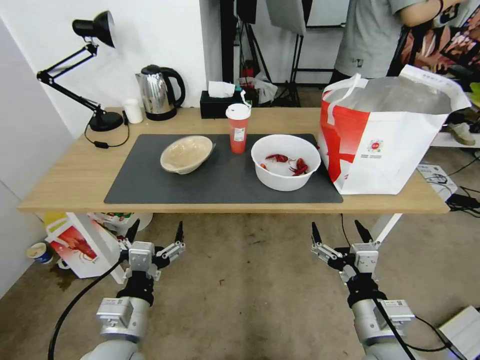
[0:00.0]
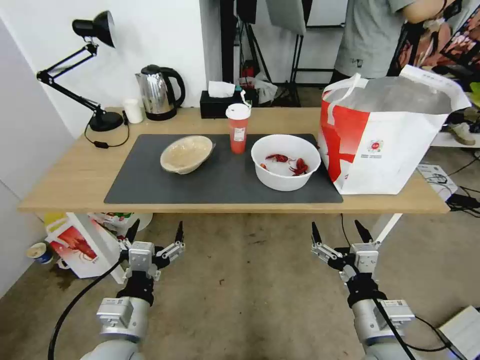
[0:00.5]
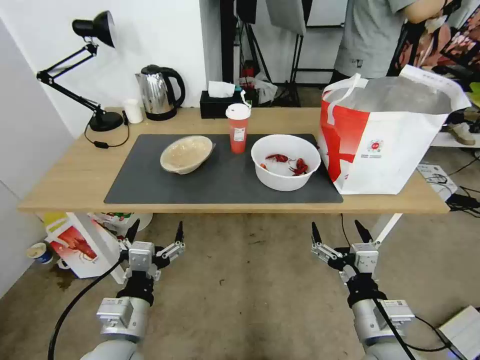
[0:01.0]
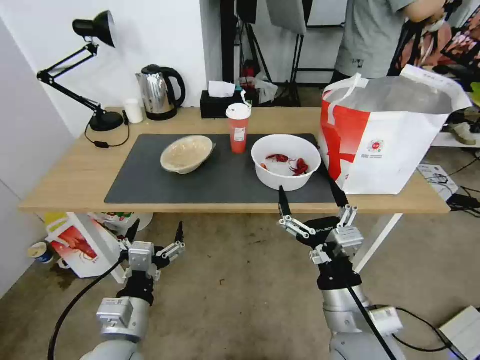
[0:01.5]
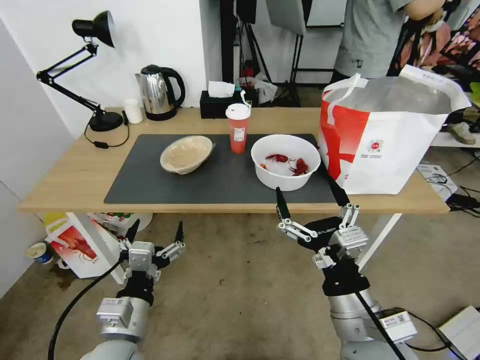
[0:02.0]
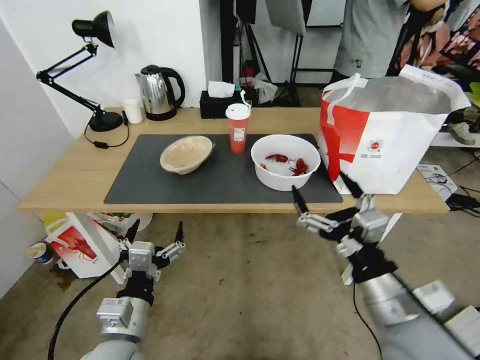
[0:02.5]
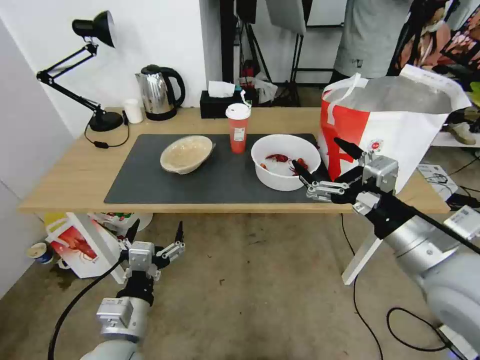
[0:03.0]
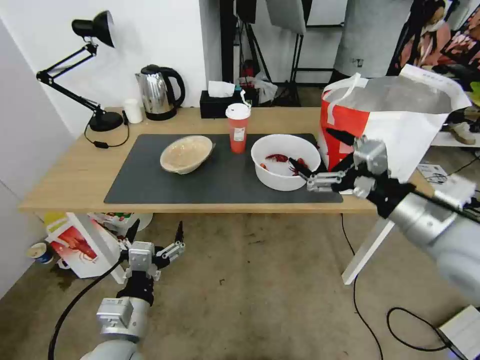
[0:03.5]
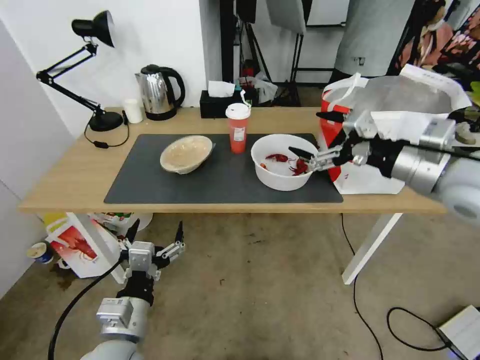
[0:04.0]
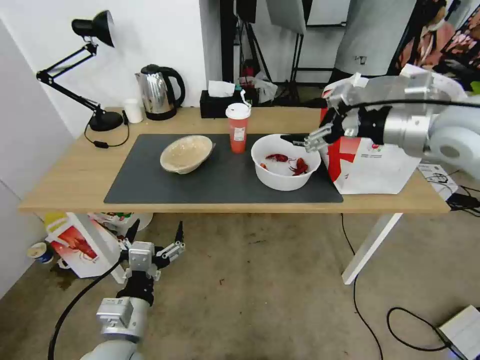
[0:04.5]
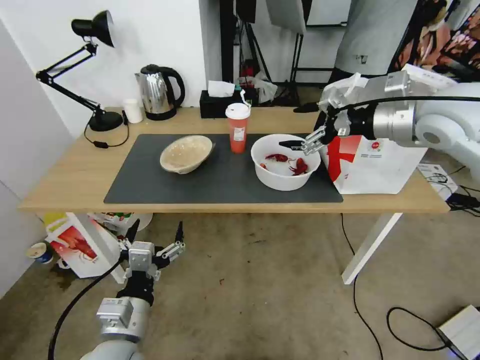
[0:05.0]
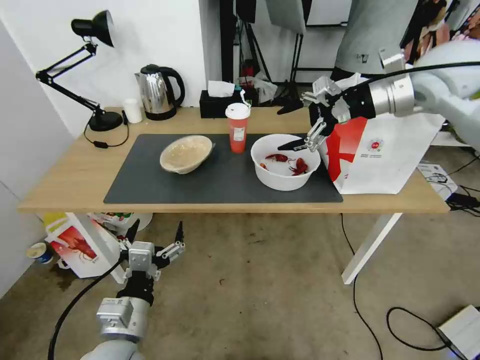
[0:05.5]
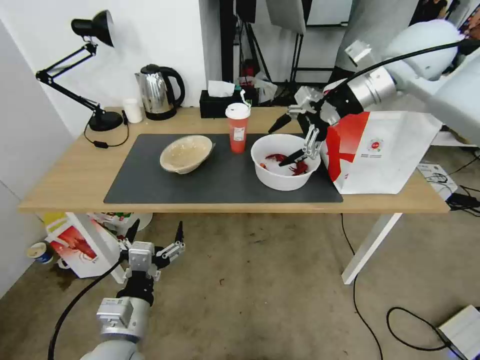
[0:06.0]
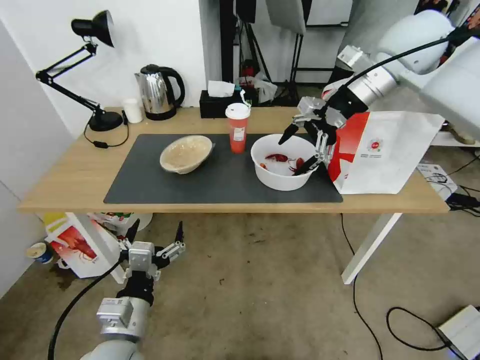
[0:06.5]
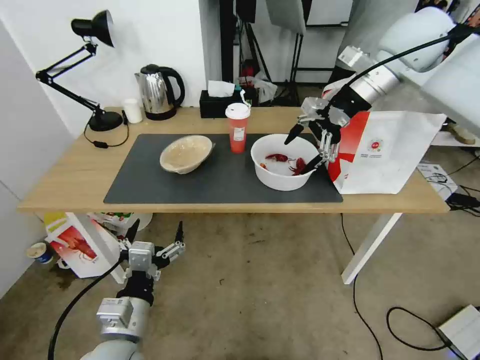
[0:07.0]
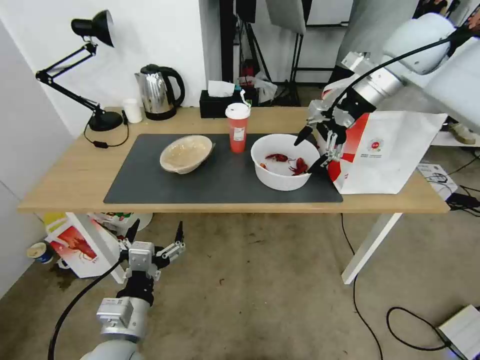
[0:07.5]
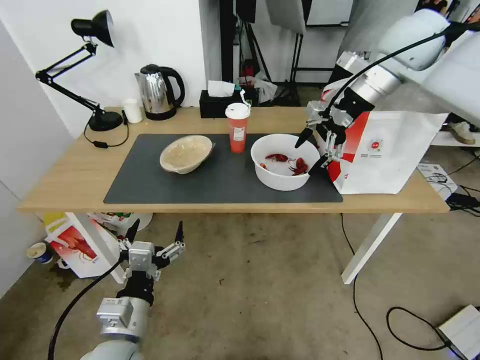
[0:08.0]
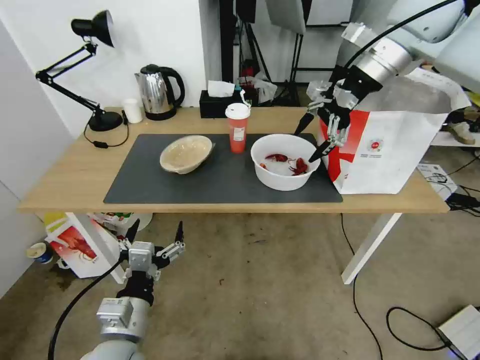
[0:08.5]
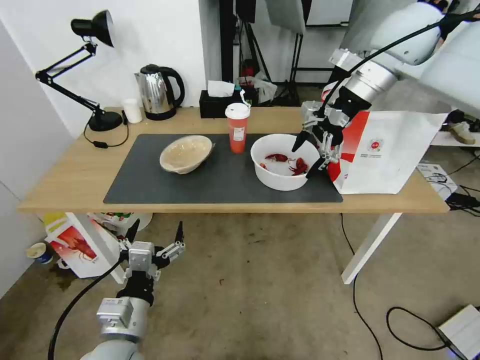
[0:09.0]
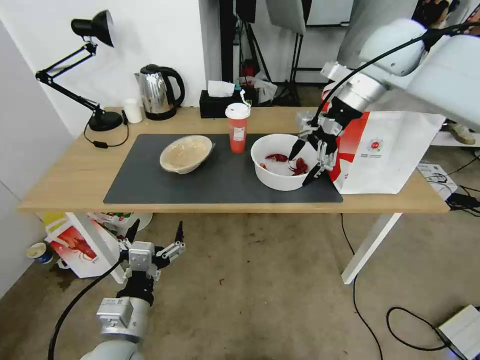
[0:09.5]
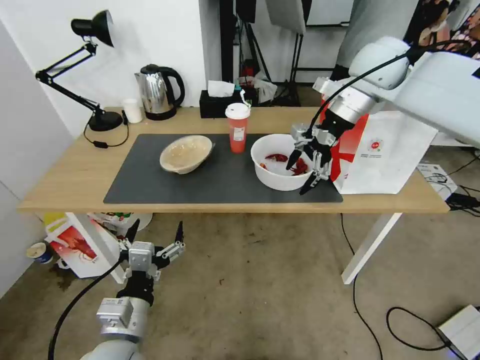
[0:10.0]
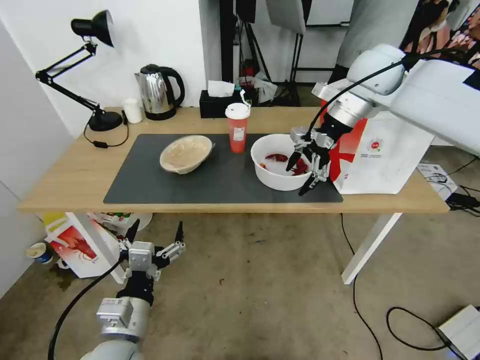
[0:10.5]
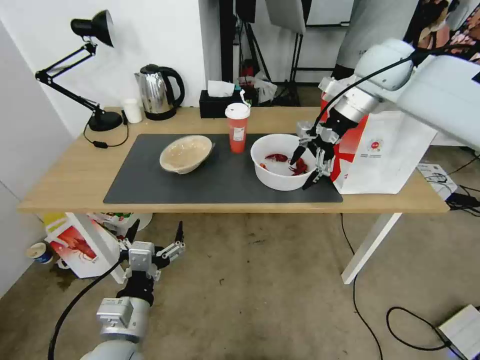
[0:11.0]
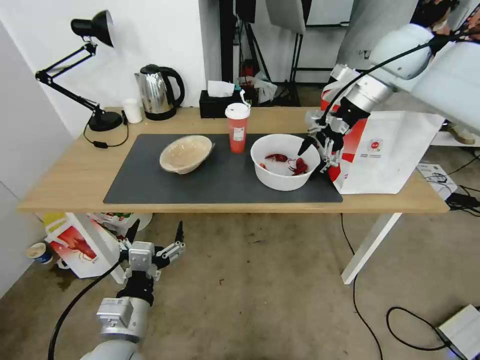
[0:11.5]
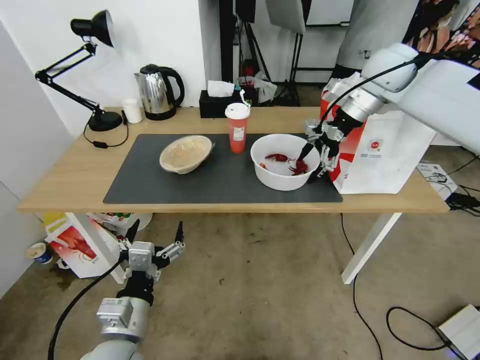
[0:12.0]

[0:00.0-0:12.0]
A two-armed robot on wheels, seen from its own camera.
Task of the whole recording: Pick up the trash from the table and place it into the takeout bag.
0:02.0 to 0:04.0: The right gripper goes roughly 30 cm upward, forward and to the right.
0:04.0 to 0:06.0: The right gripper goes about 20 cm forward and upward.
0:08.0 to 0:10.0: The right gripper ends up some 5 cm from where it was.
0:10.0 to 0:12.0: The right gripper moves some 5 cm.

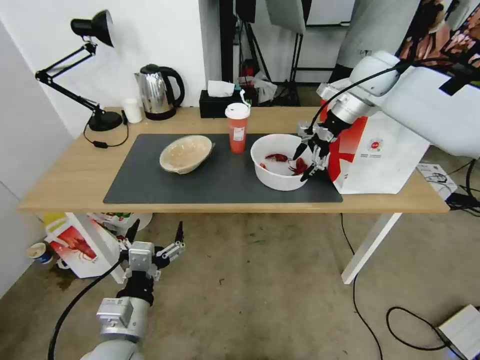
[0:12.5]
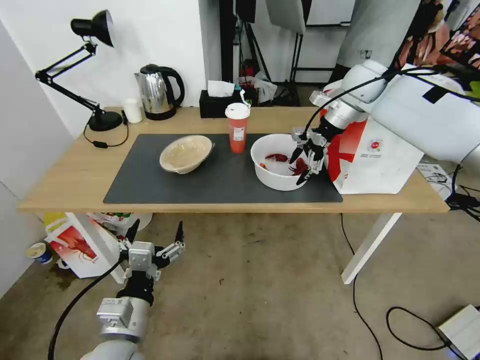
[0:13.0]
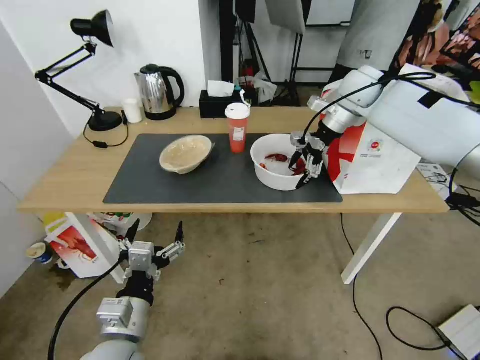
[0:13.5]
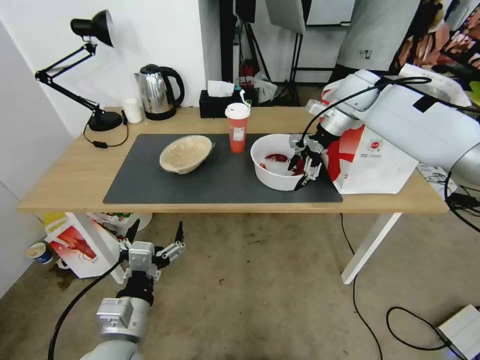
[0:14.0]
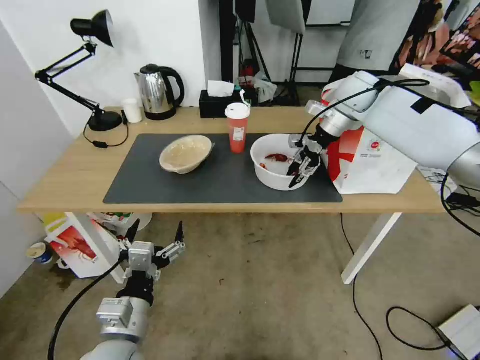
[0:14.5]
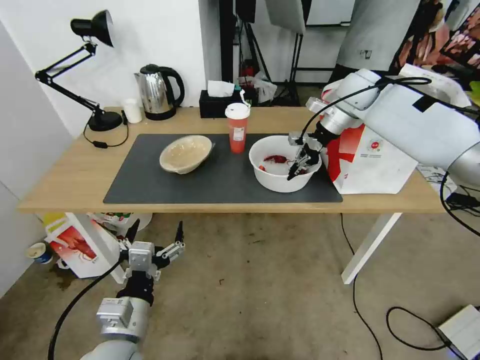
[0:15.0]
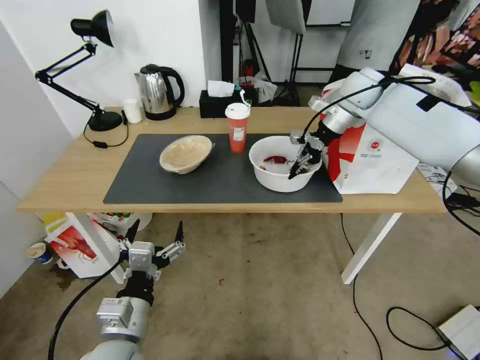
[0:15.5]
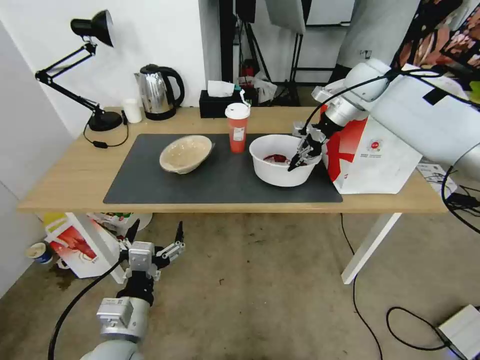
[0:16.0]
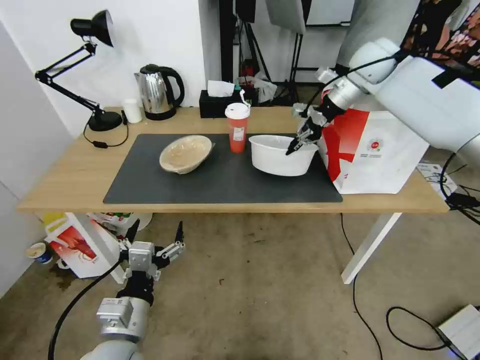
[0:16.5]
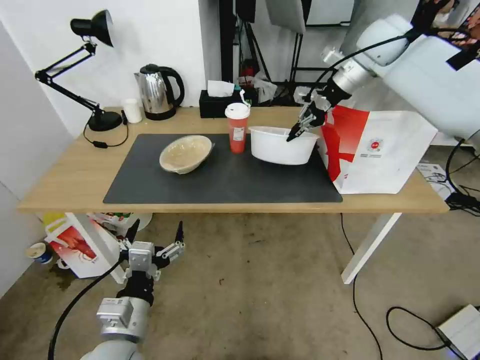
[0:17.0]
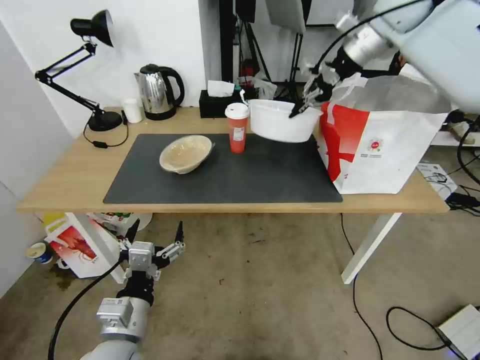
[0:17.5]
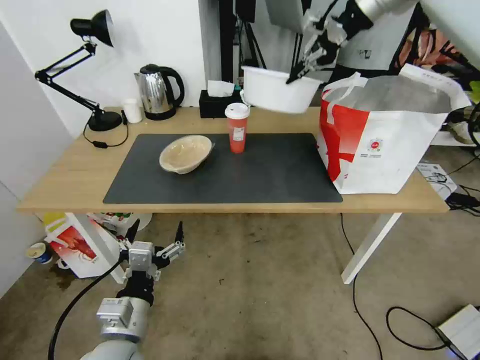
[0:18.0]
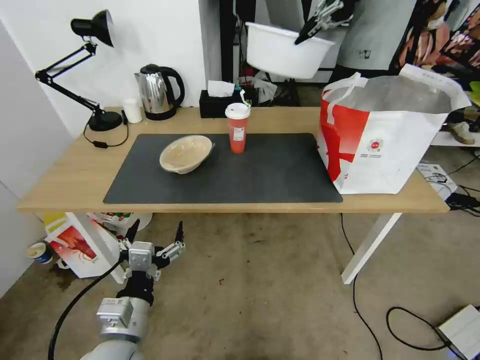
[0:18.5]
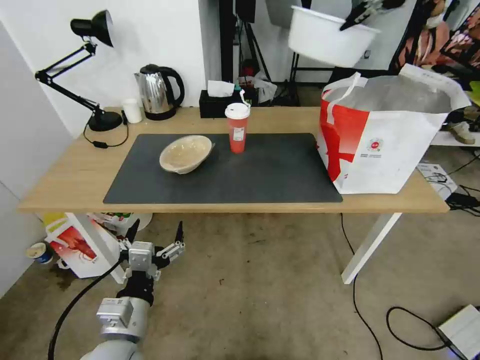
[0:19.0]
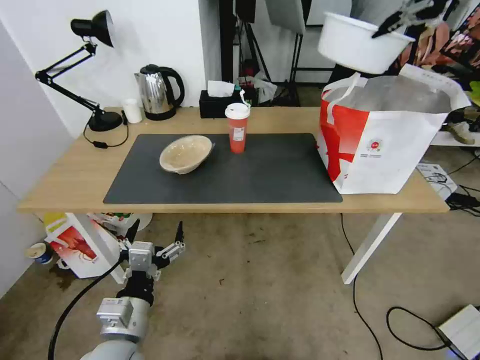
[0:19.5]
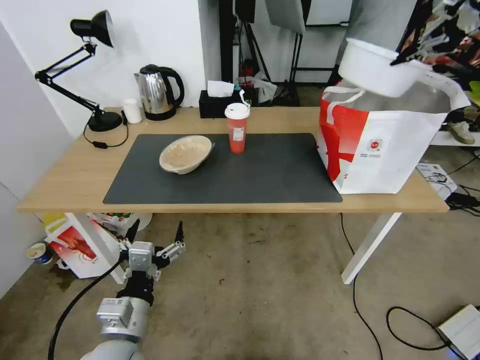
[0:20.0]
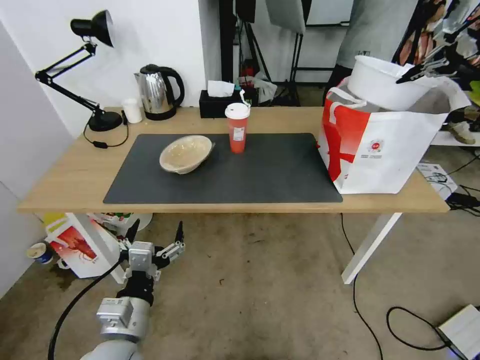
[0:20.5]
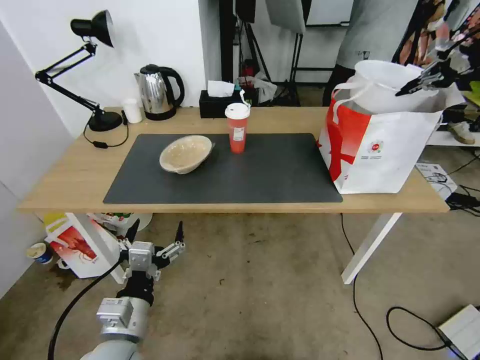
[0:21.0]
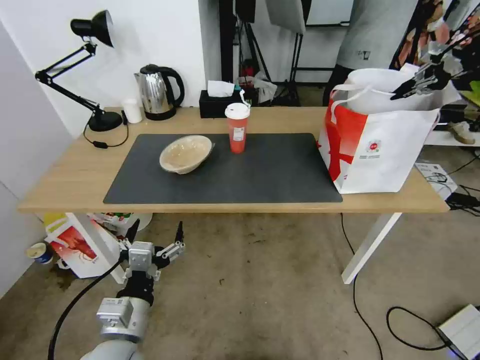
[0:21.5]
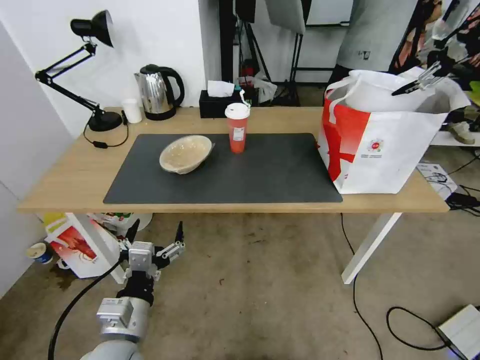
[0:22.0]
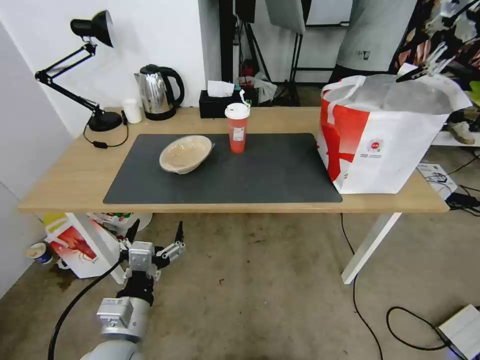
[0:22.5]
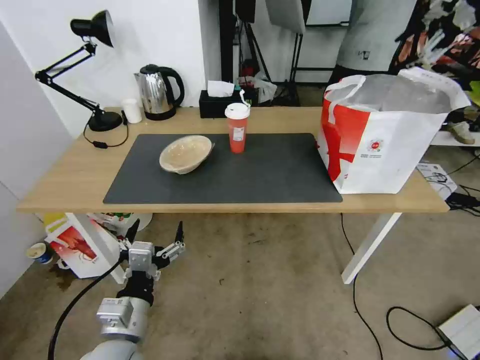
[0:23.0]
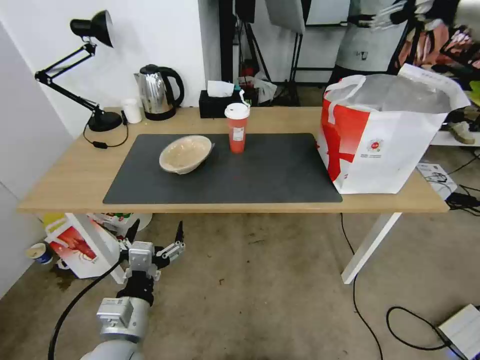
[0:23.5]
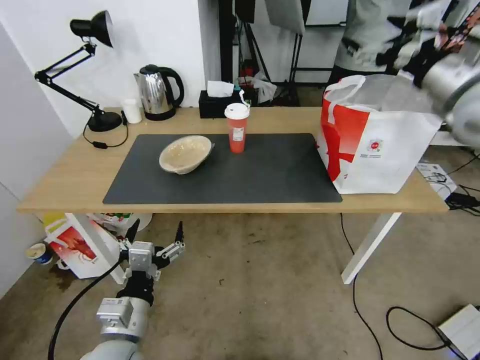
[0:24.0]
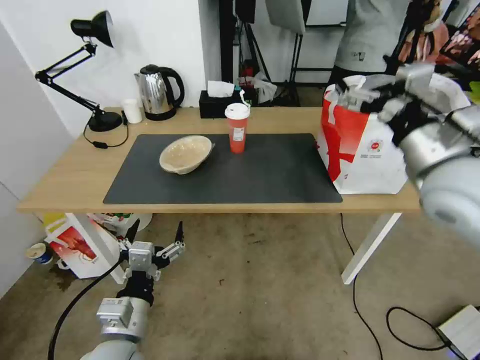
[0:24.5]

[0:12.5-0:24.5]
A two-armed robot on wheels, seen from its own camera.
Task of the whole recording: Pick up the trash from the table and place it into the takeout bag.
0:12.5 to 0:14.5: The right gripper closes up.
0:14.5 to 0:16.5: The right gripper moves upward, roughly 5 cm, and closes its fingers.
0:16.5 to 0:18.5: The right gripper shifts about 25 cm upward.
0:18.5 to 0:20.5: The right gripper is displaced to the right and downward by roughly 30 cm.
0:20.5 to 0:22.5: The right gripper opens its fingers.
0:22.5 to 0:24.5: The right gripper heads backward, downward and to the left, covering roughly 40 cm.

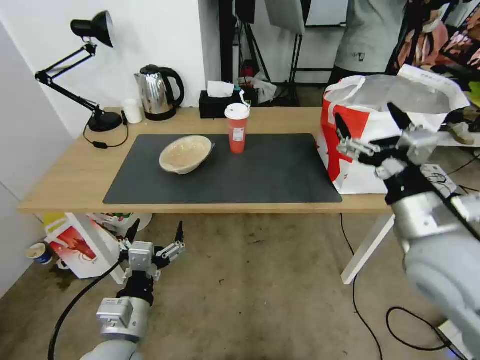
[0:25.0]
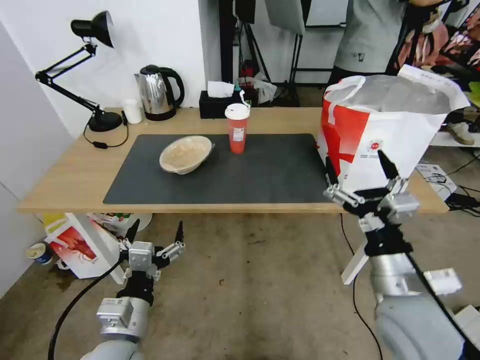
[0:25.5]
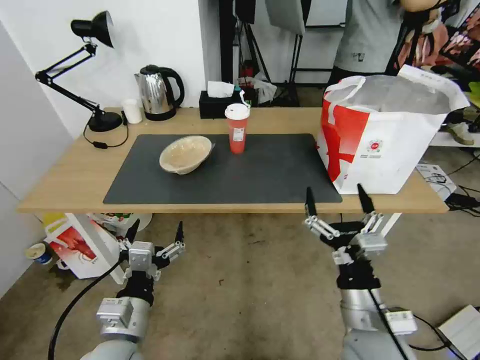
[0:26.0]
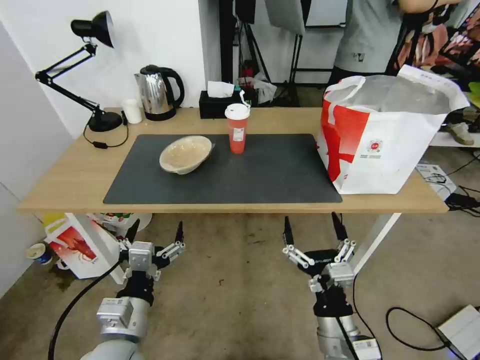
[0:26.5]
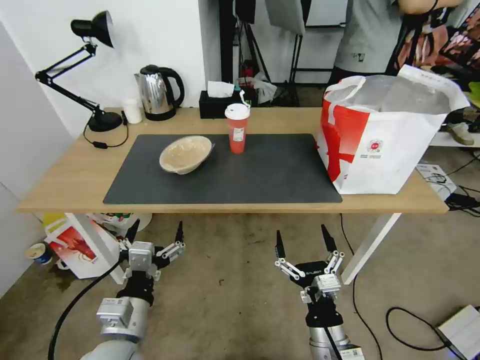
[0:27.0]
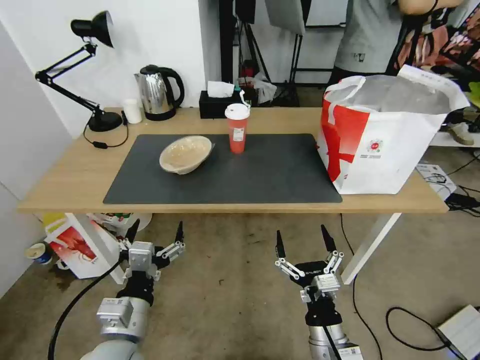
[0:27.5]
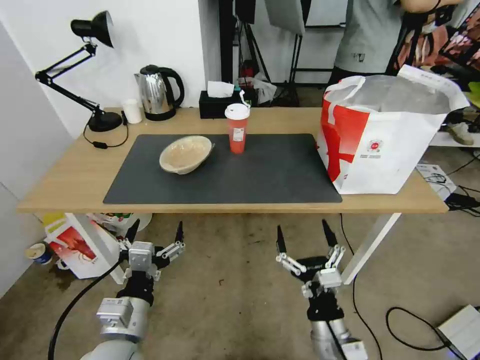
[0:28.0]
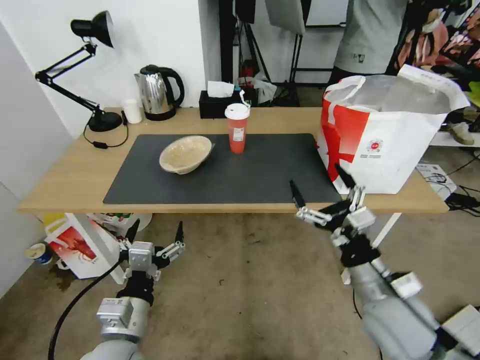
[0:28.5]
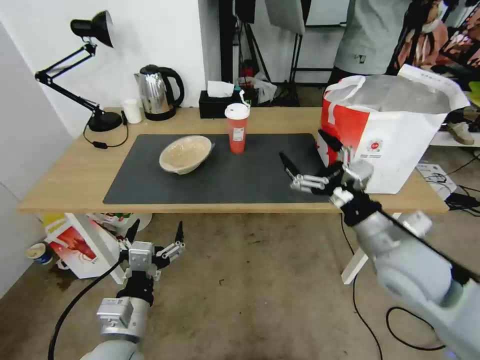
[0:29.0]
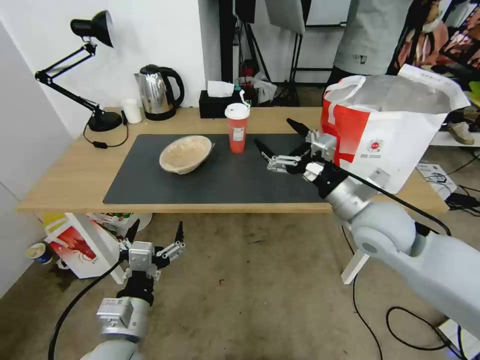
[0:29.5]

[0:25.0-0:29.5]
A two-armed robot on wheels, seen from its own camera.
Task of the whole recording: Pick up the trash from the table and place it into the takeout bag.
0:25.0 to 0:27.0: The right gripper goes roughly 30 cm downward, backward and to the left.
0:27.0 to 0:29.5: The right gripper heads forward, upward and to the right, covering roughly 30 cm.
